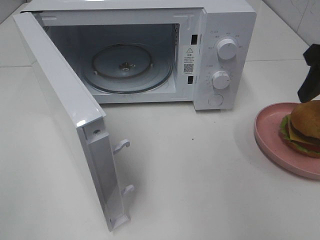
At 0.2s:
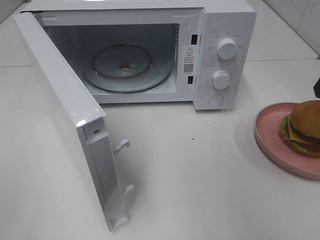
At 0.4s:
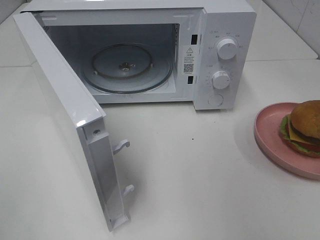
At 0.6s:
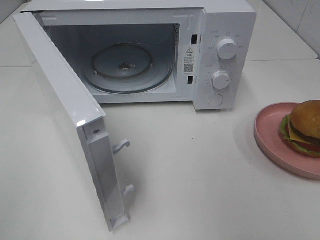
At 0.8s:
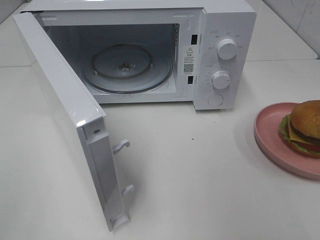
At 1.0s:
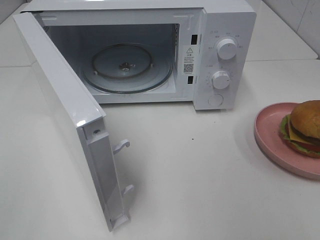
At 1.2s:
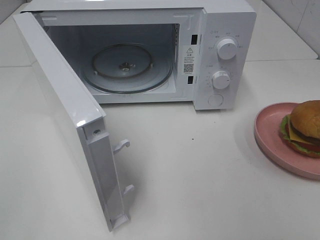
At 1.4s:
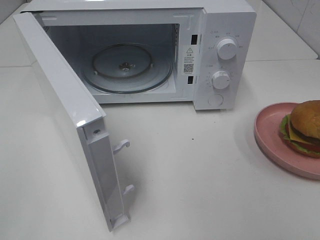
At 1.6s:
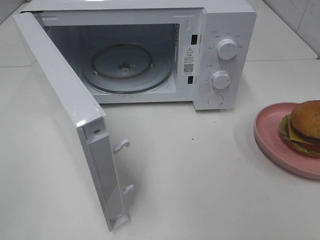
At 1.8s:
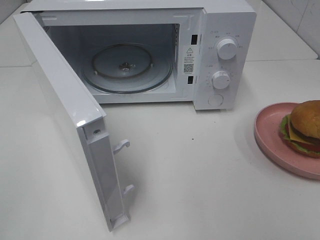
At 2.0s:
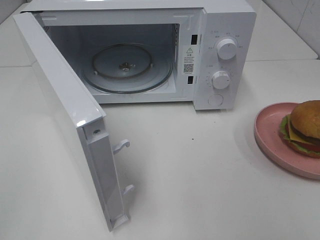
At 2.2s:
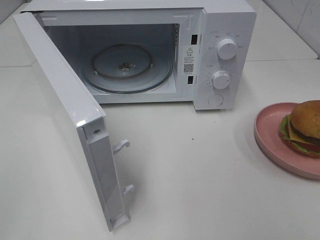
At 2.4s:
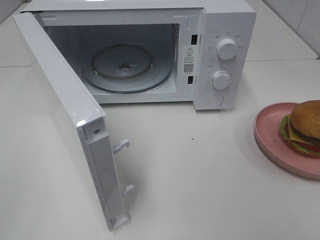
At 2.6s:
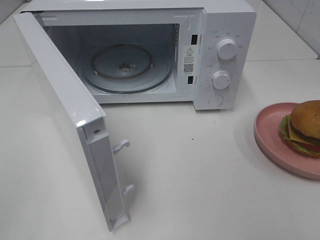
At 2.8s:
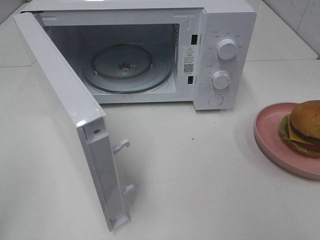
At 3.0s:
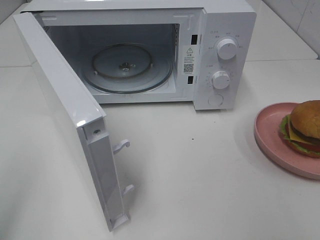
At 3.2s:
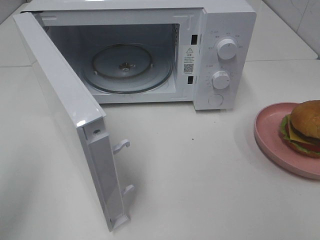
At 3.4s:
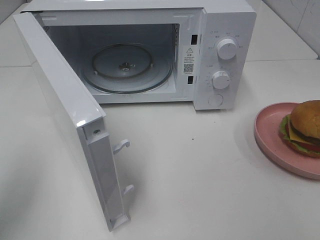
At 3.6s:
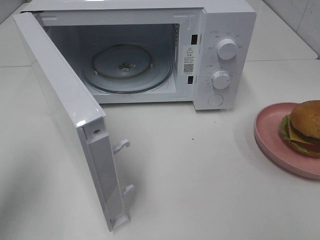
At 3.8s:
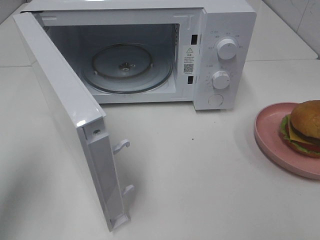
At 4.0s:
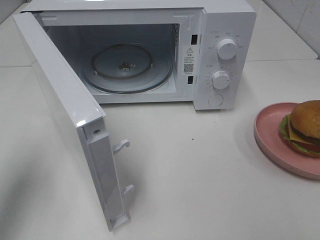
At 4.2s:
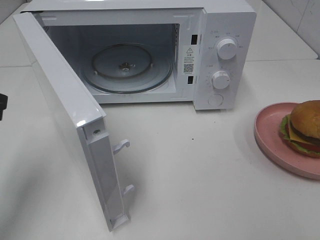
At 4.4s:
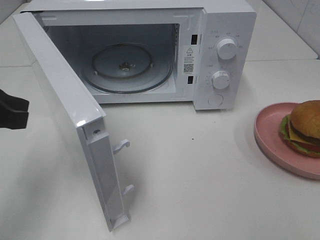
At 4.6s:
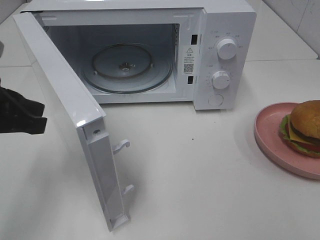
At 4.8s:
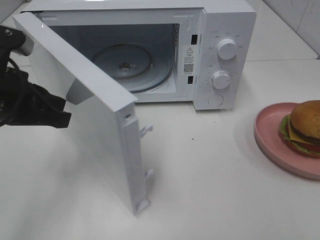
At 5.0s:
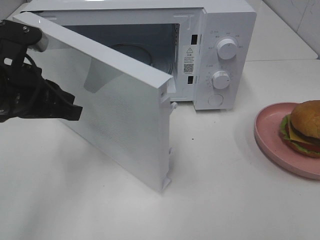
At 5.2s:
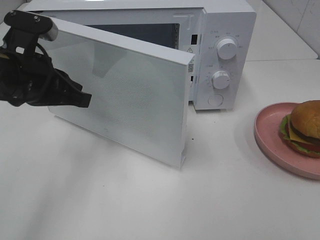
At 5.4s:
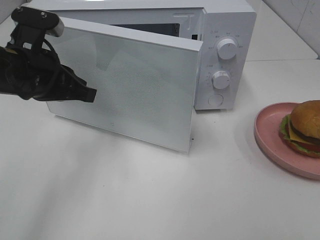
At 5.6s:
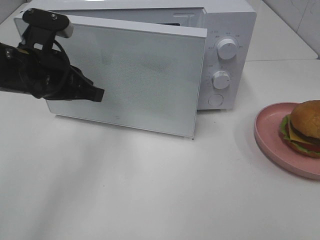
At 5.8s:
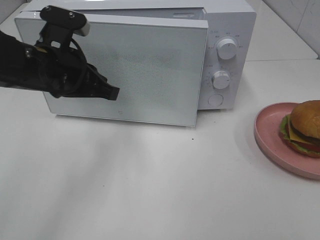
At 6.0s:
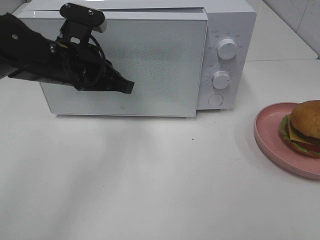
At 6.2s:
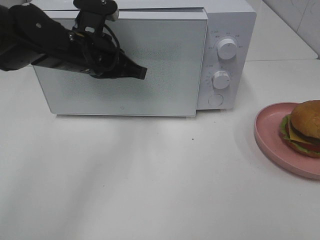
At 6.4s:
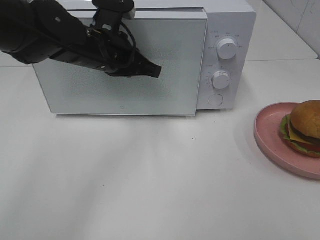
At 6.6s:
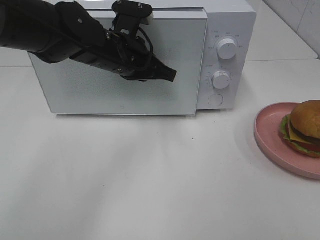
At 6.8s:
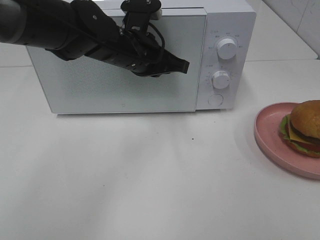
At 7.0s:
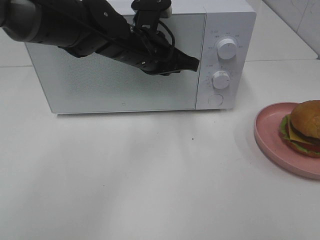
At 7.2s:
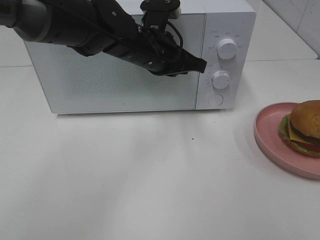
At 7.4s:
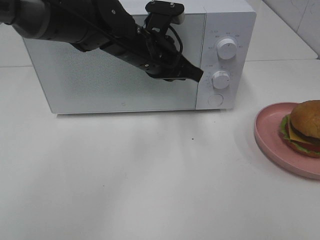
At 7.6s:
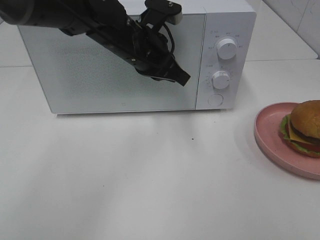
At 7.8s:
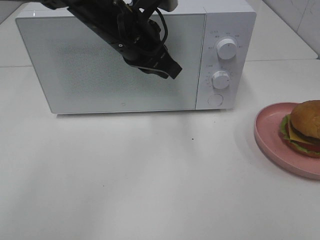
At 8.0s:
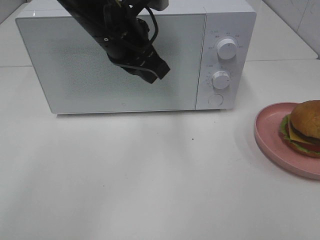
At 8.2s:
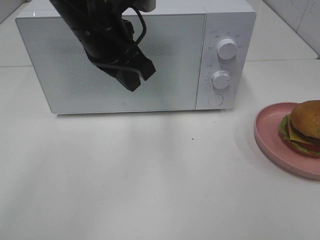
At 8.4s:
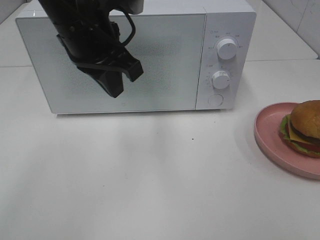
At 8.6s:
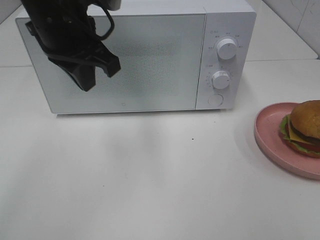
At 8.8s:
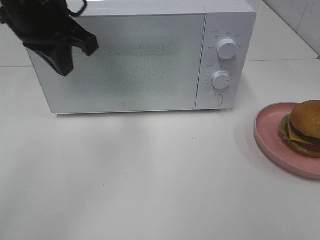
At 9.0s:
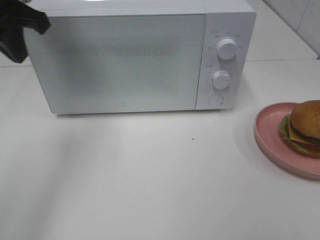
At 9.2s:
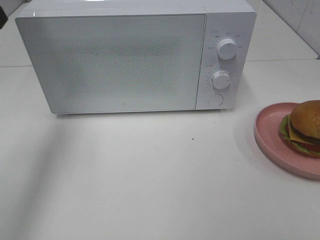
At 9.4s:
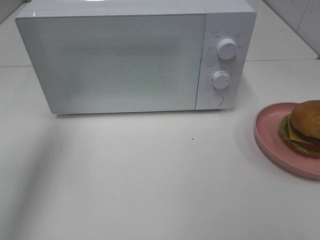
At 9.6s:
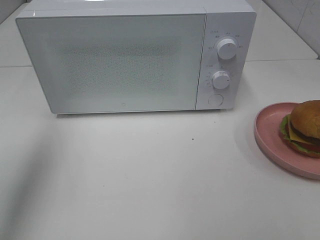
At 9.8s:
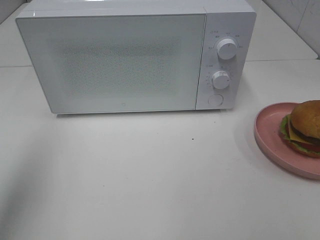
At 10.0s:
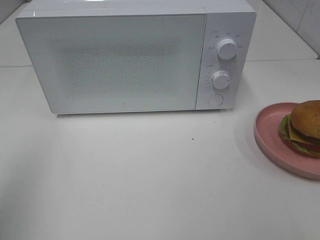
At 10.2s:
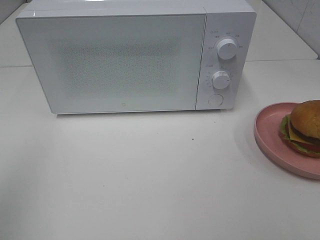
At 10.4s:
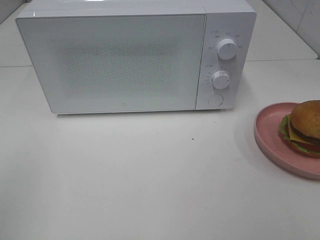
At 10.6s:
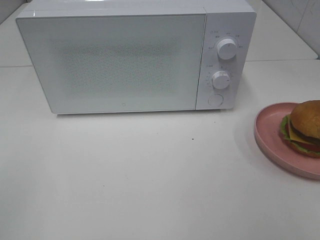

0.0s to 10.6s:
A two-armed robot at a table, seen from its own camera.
Task of the whole recording: Heat the burger.
Step, 0.0s to 7.6s: Left hand: close the microwave door.
0.0s to 1.6s: The right gripper moves backward, roughly 25 cm.
3.0s to 4.6s: The left gripper moves forward, downward and to the right, roughly 20 cm.
4.6s to 6.0s: The left gripper heads to the right and forward, covering approximately 15 cm.
6.0s to 7.6s: The left gripper goes approximately 10 cm to the right.
7.6s to 9.0s: The left gripper travels to the left and upward by roughly 20 cm.
9.0s to 10.6s: The left gripper heads backward, covering approximately 30 cm.

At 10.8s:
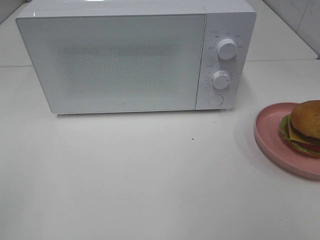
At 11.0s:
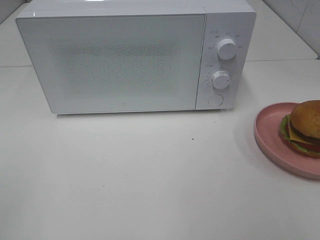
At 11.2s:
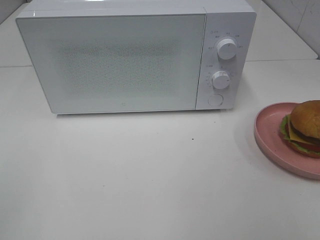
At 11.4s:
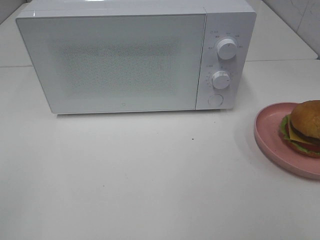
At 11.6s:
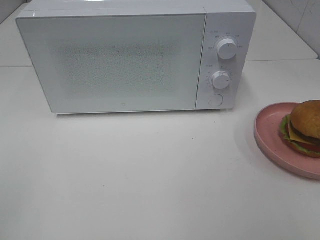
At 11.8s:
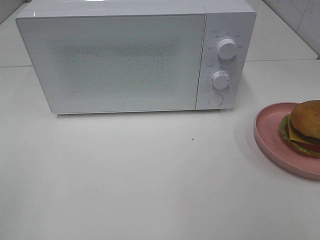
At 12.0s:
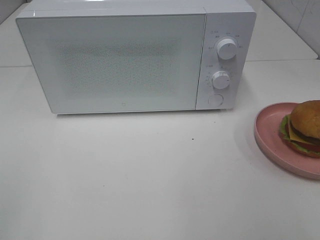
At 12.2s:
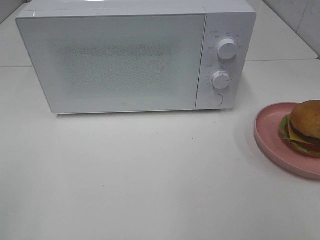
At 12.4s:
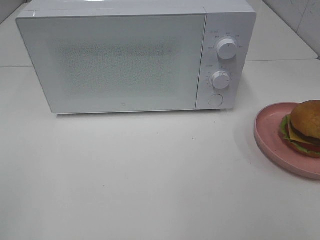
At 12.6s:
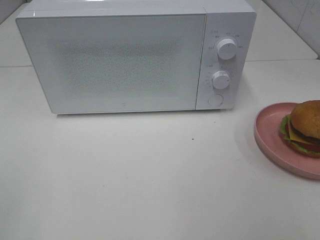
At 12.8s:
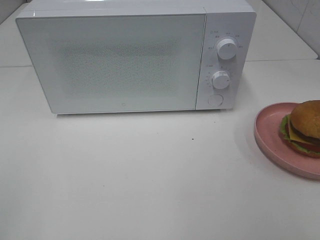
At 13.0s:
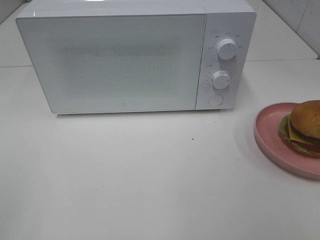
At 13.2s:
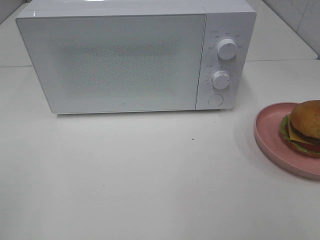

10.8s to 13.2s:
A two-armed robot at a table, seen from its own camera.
Task of the whole recording: Heat the burger.
12.0s to 13.2s: Neither gripper changes place.

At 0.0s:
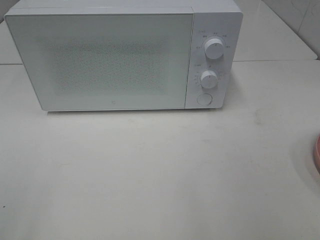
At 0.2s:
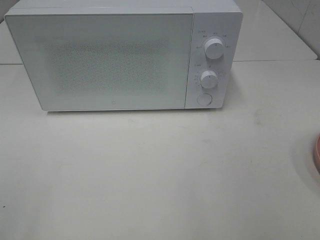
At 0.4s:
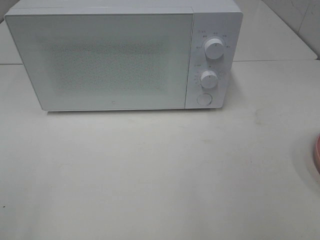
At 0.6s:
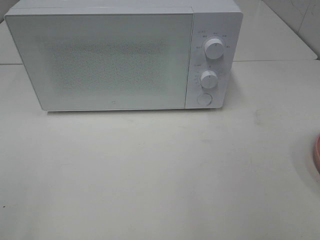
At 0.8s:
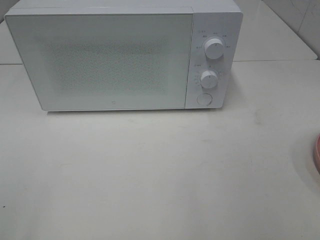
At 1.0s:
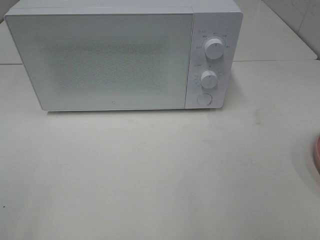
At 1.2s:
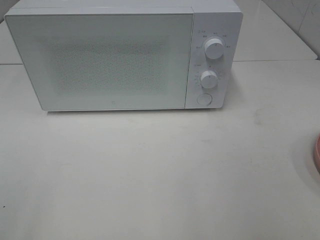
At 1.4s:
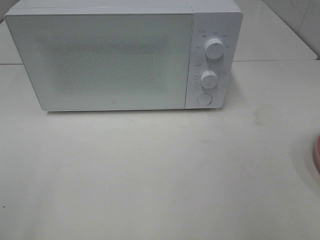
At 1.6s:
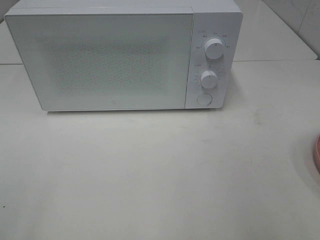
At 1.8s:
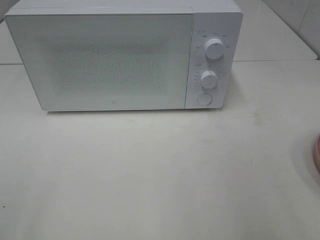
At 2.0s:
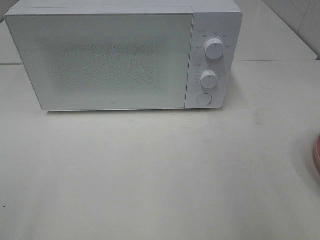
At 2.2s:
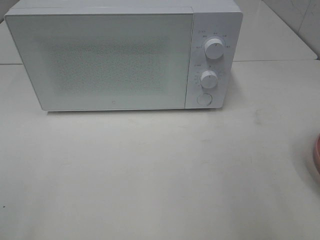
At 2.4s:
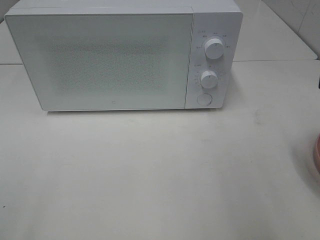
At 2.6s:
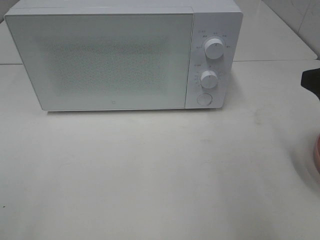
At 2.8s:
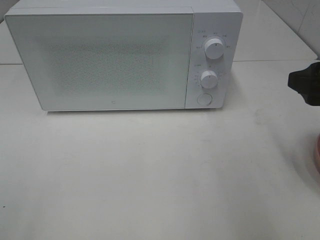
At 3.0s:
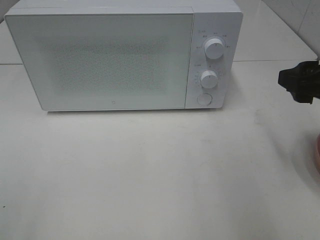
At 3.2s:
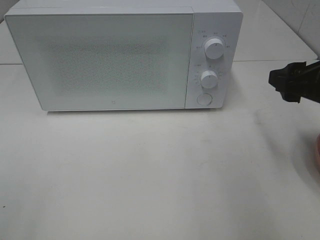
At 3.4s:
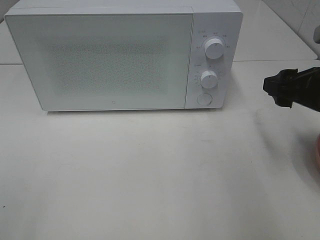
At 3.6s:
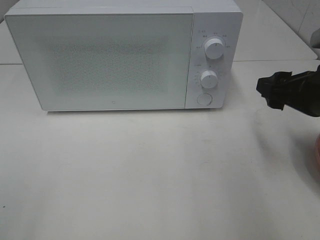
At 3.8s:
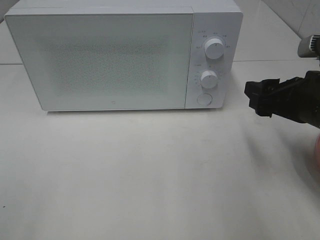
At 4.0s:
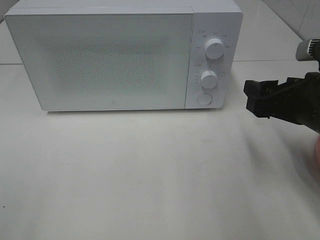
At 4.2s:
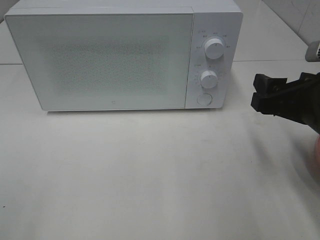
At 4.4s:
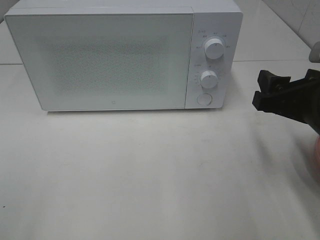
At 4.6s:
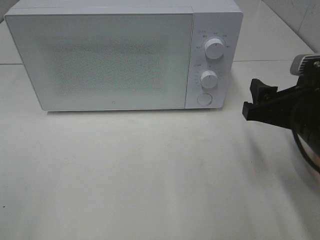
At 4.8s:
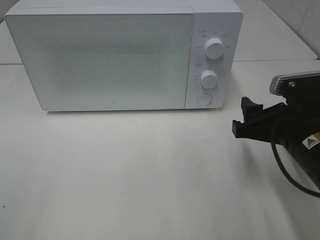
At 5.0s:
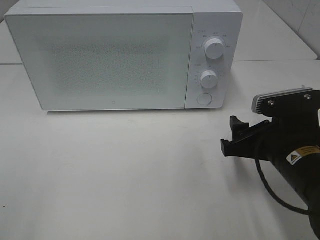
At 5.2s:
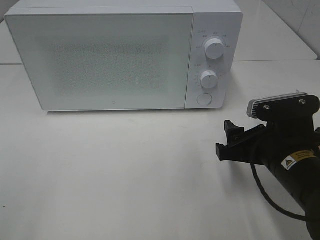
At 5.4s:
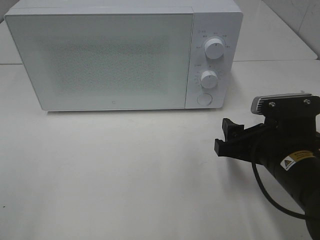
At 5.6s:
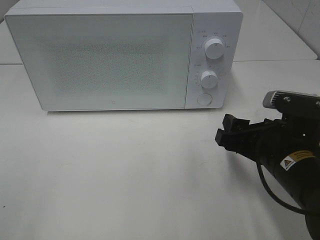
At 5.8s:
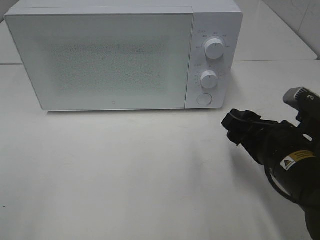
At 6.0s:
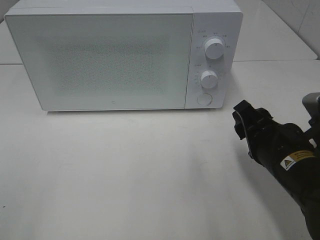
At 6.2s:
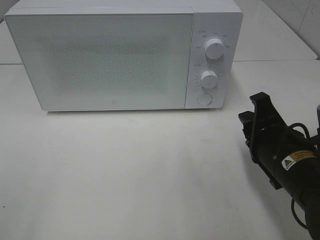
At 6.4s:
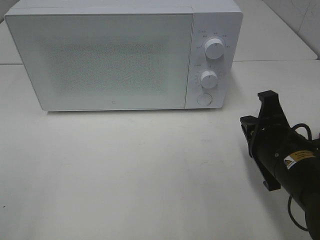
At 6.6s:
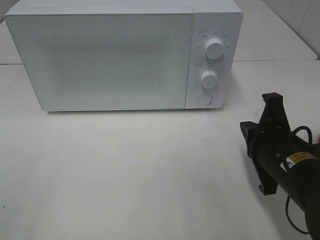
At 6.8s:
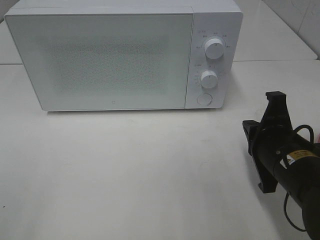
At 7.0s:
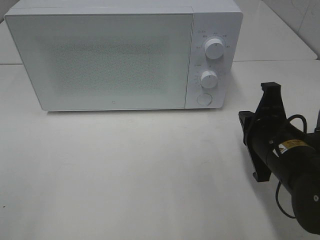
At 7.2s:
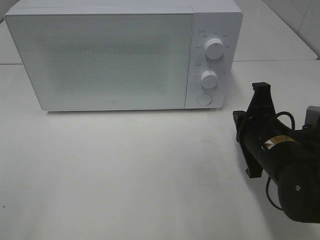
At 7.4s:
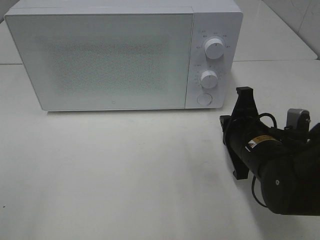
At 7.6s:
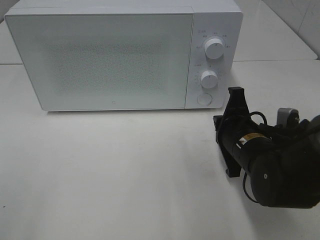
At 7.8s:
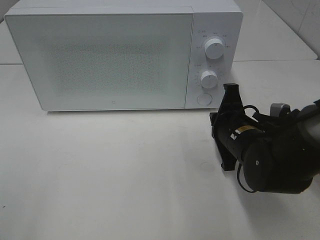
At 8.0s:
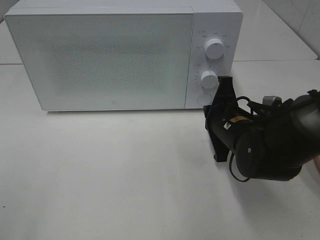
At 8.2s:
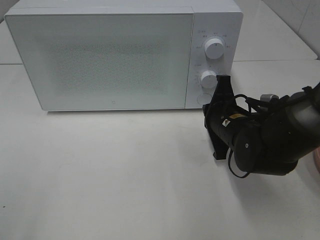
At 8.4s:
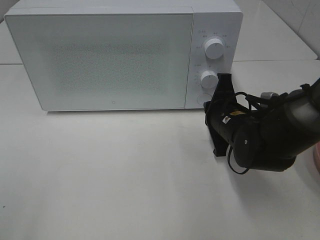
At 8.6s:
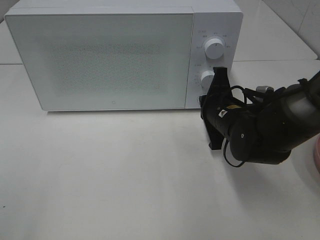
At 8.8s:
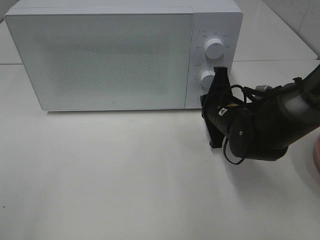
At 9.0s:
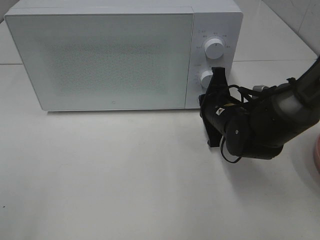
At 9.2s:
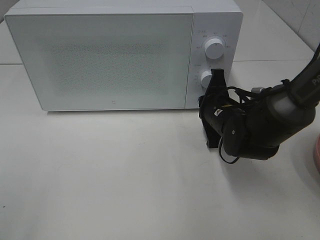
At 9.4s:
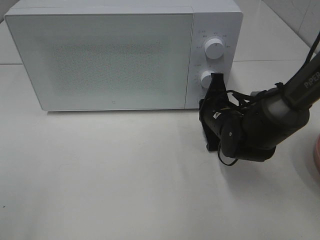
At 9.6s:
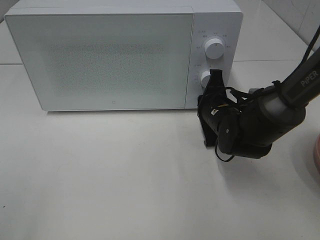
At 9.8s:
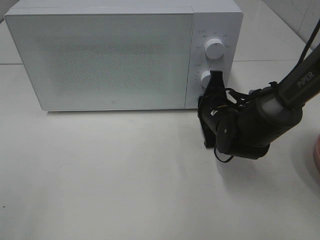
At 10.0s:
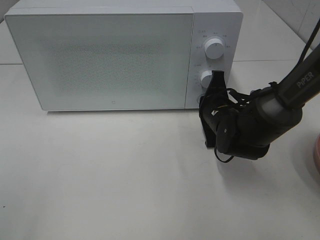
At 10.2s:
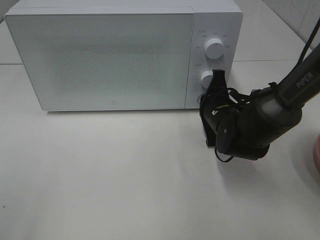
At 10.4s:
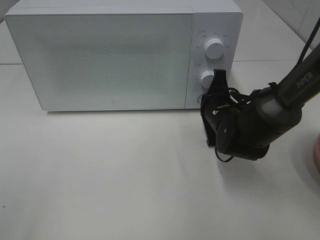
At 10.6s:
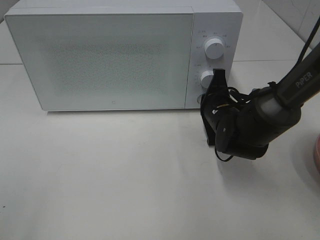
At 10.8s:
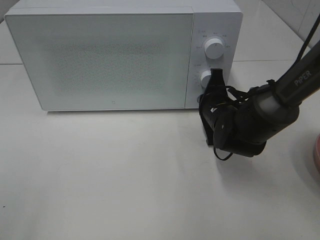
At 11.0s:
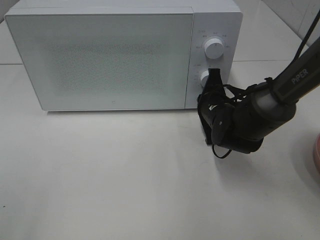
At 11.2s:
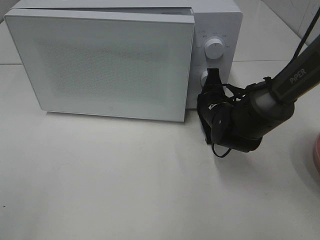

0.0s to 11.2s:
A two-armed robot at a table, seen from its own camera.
Task of the whole recording: Heat the burger.
1.6s to 3.2s: The right gripper heads forward and downward, covering approximately 20 cm.
3.2s to 4.8s: The right gripper goes about 10 cm downward and to the left.
4.8s to 6.4s: The right gripper closes.
6.4s to 8.0s: The right gripper goes about 10 cm forward.
8.0s to 9.6s: The right gripper goes some 5 cm forward.
9.6s to 11.2s: The grippers stay close to where they were, moving slightly.
